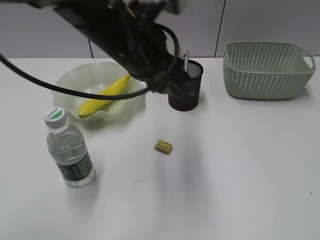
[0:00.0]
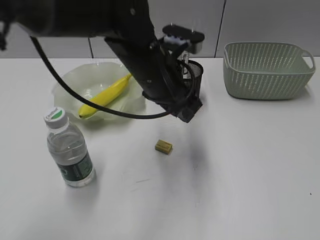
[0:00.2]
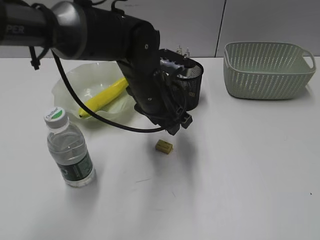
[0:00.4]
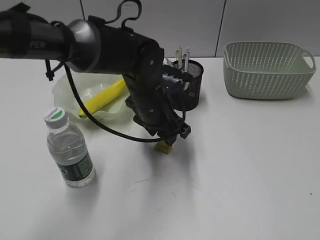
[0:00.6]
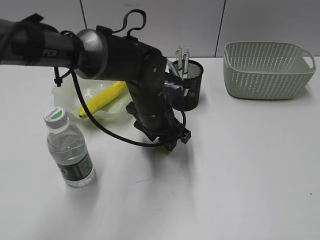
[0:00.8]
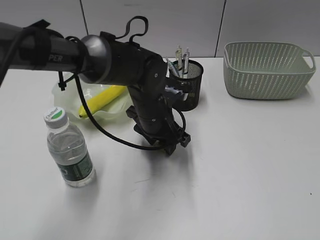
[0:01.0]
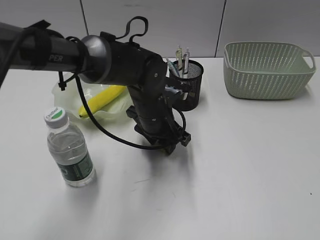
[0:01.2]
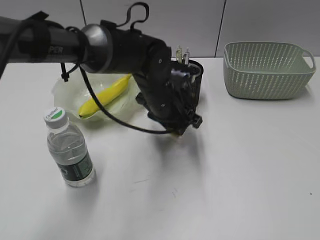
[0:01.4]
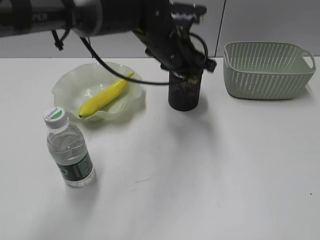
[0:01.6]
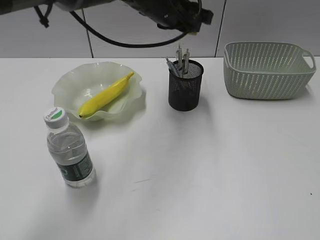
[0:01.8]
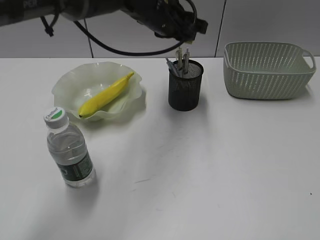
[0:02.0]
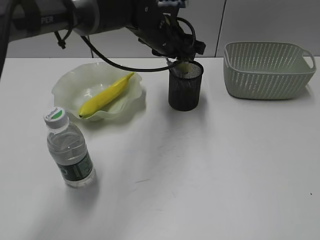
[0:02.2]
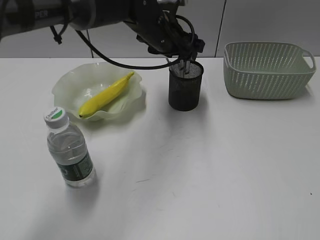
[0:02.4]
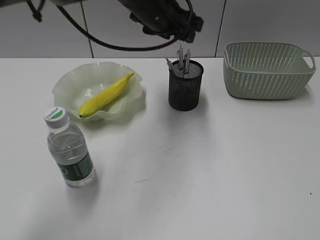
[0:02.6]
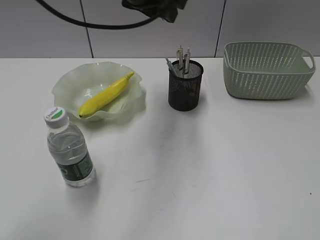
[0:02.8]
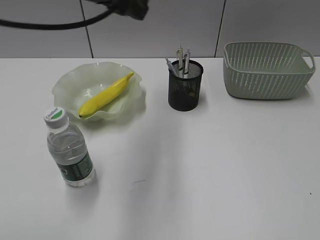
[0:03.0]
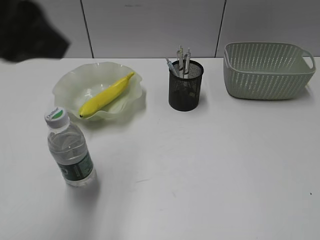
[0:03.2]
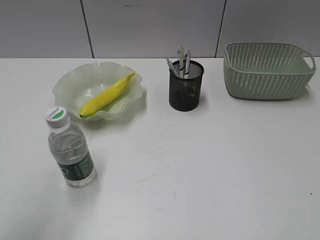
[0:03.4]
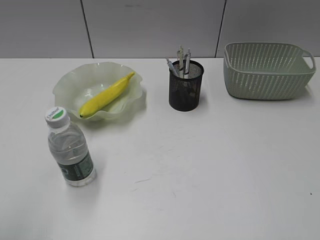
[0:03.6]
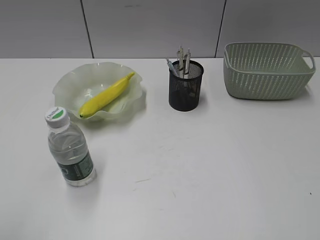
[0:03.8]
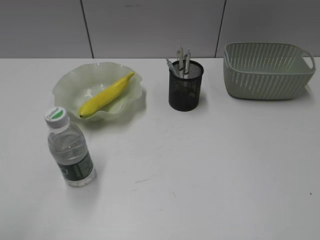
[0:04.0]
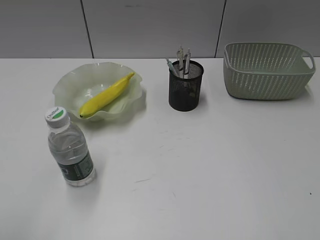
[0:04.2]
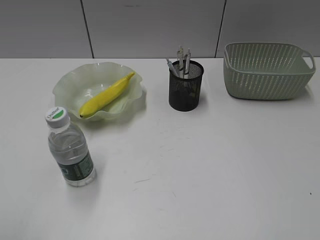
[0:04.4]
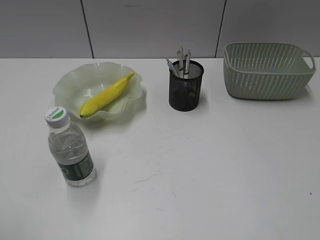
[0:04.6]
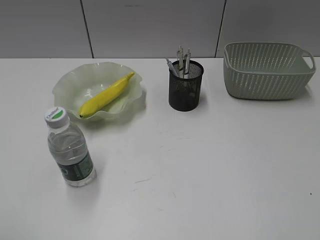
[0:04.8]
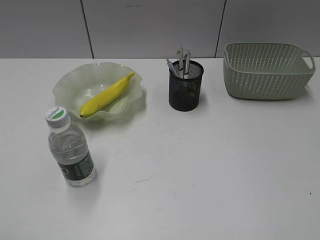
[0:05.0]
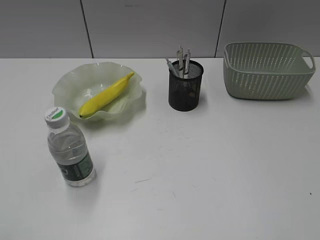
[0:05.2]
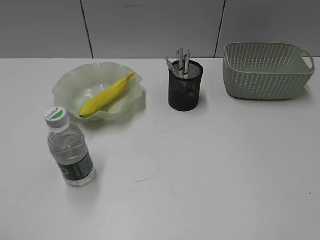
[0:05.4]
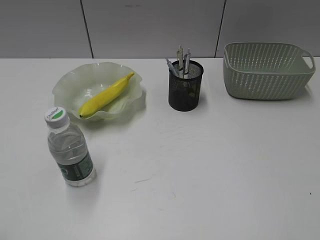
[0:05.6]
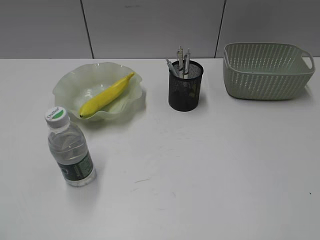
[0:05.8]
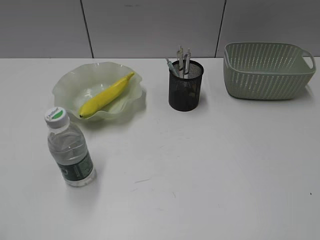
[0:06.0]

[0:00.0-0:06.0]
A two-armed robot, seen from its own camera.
Step, 0:01.2 to 0:02.4: Place the eraser in pen holder with left gripper.
0:00.0 to 0:01.6: The left gripper goes about 15 cm forward, downward and to the right.
0:01.6 to 0:03.0: The left gripper swings up and down, approximately 15 cm each way, with 2 reversals.
0:03.0 to 0:04.4: The left gripper shifts some 35 cm backward and to the left.
